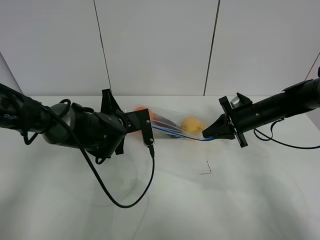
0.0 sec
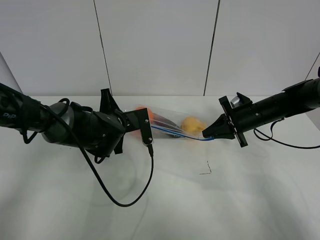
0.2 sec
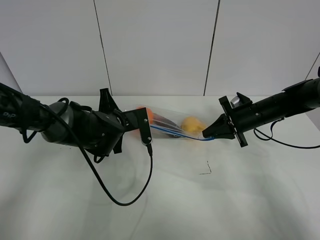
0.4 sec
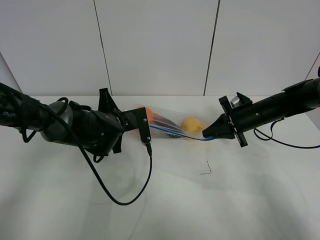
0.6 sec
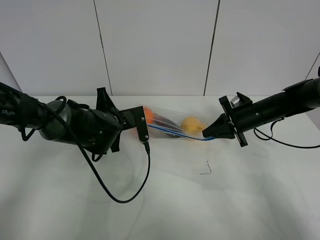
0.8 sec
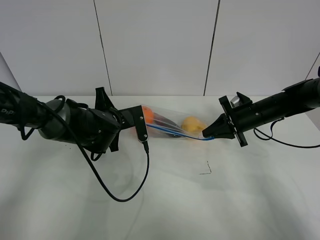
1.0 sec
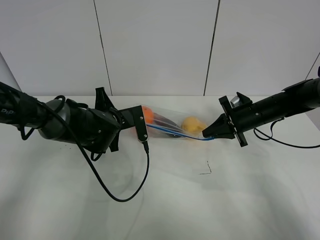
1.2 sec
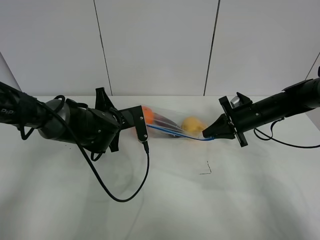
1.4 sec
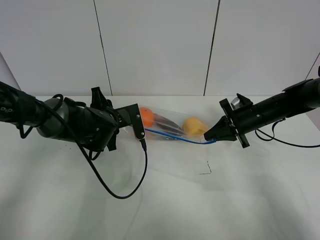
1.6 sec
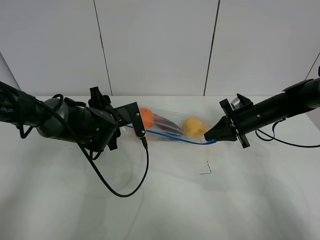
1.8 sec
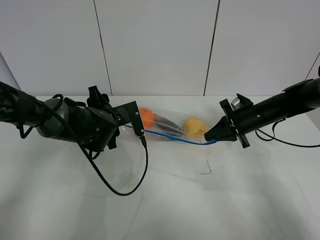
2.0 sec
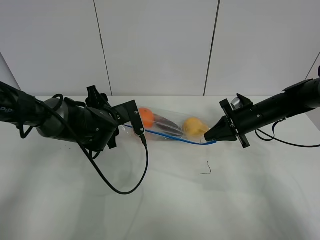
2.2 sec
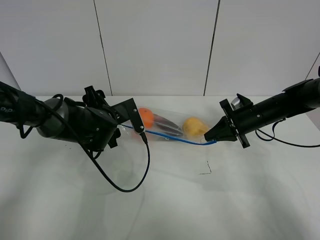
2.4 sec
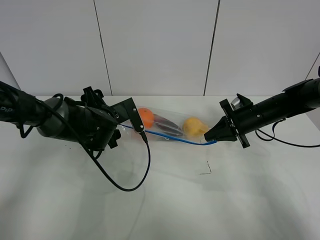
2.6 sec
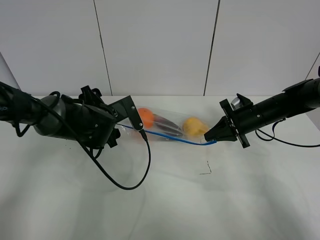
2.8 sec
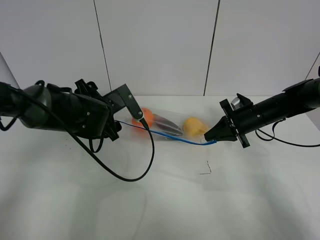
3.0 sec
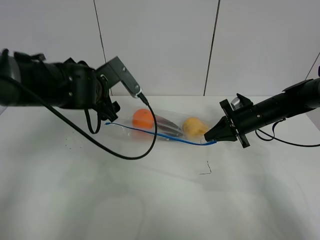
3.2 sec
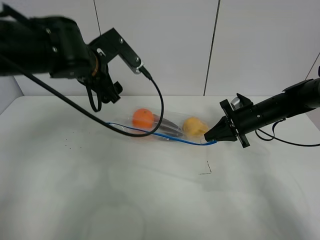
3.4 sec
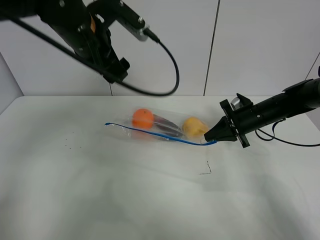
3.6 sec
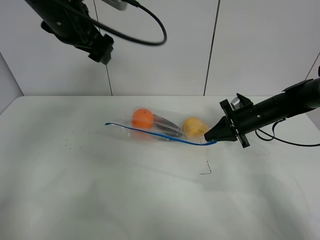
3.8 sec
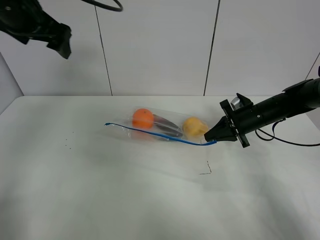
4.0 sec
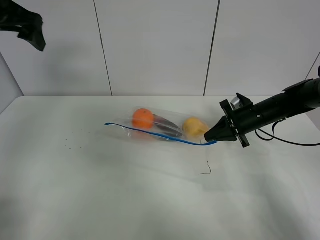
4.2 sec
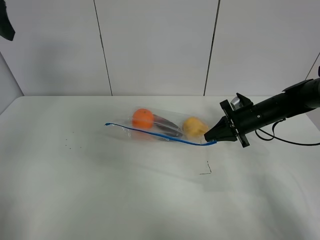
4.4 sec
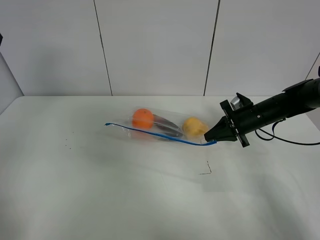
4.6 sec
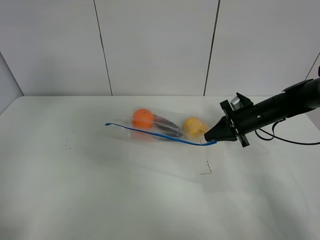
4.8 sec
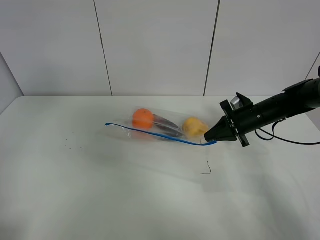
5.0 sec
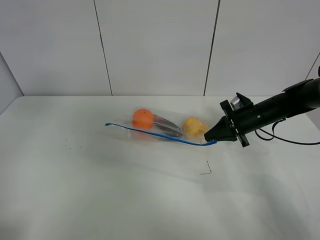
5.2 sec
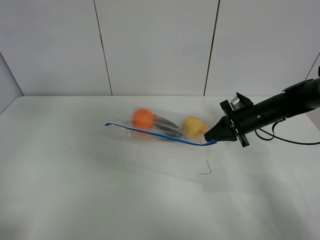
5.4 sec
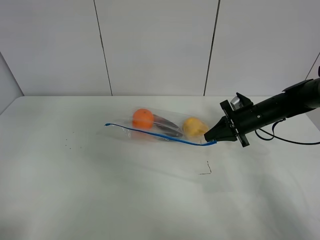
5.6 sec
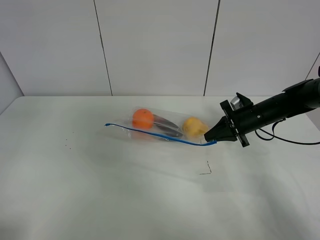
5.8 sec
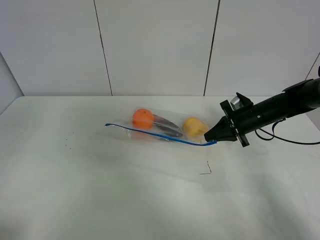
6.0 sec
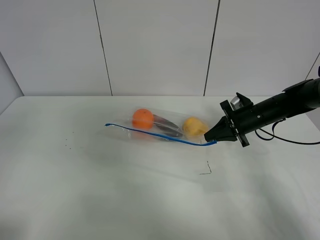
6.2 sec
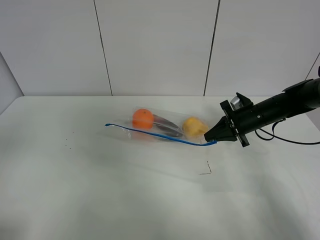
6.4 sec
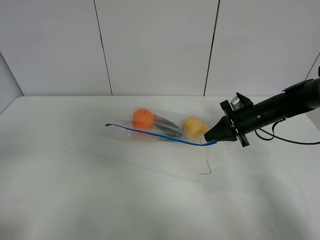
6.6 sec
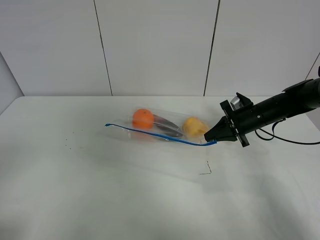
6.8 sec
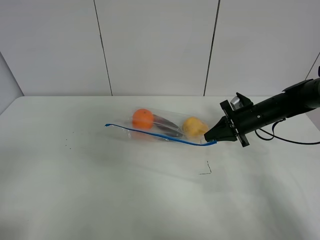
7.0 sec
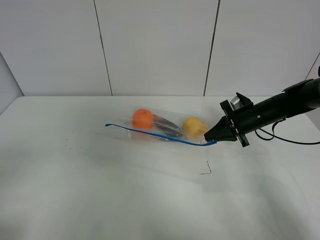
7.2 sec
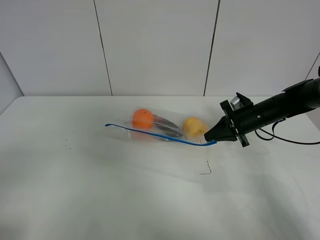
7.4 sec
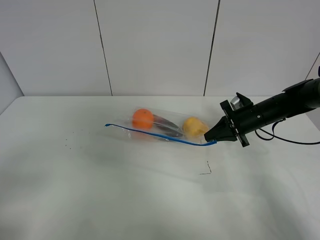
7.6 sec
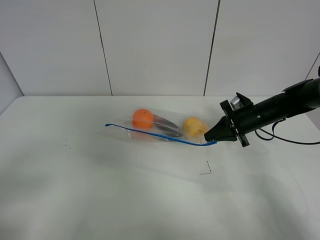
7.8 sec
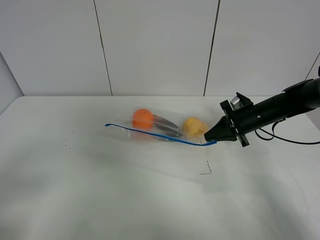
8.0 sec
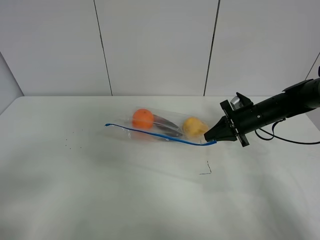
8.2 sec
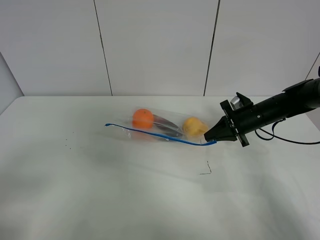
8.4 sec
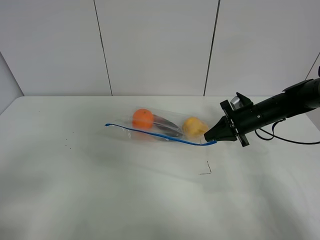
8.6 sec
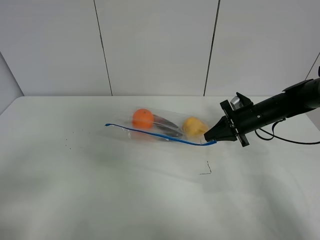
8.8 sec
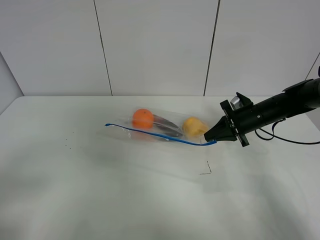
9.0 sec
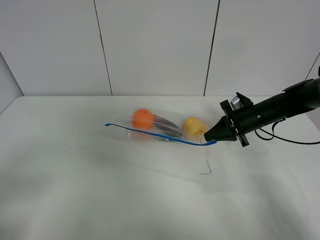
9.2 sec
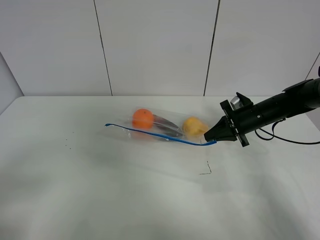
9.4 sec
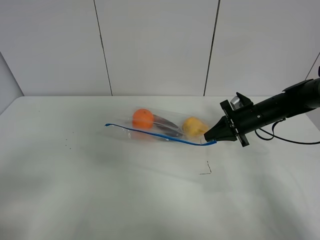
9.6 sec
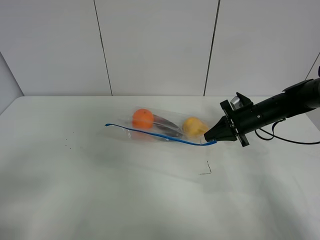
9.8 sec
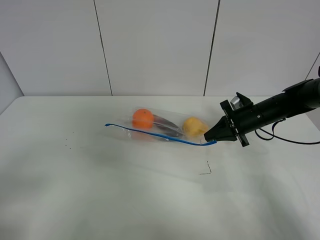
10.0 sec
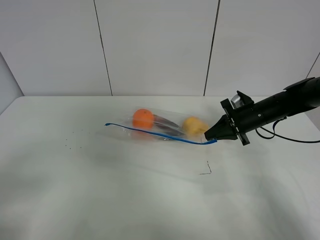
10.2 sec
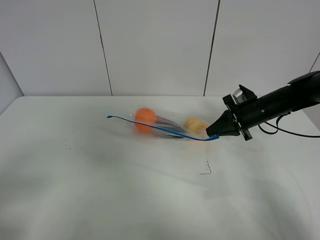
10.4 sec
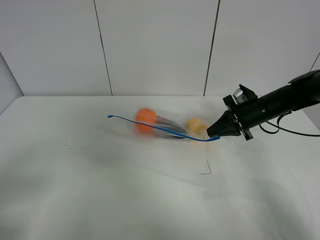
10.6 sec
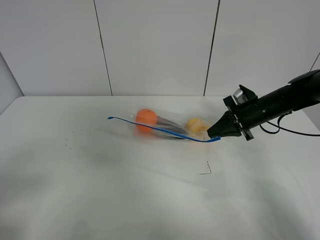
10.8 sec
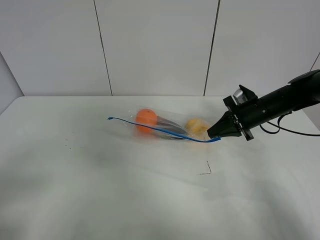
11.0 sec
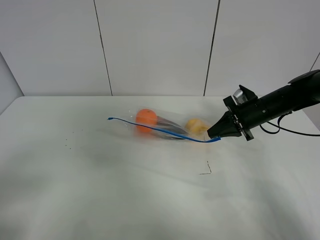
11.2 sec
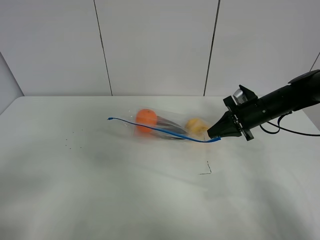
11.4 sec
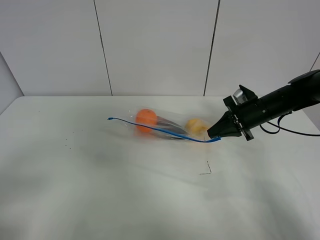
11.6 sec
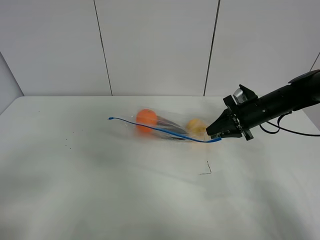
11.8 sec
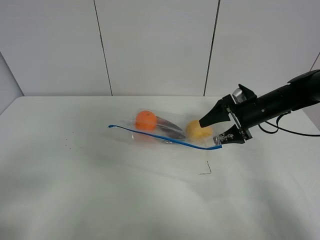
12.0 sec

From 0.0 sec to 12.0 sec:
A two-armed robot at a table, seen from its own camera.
Step, from 0.0 sec to 2.0 sec: Pull the fruit bag with left gripper.
From 0.0 sec to 1.6 sec: The left gripper opens up.
From 1.6 sec to 3.0 sec: The grippers make only small movements.
From 3.0 sec to 4.4 sec: The left gripper moves upward and to the left, about 30 cm.
From 4.4 sec to 6.0 sec: The left gripper goes approximately 20 cm backward.
From 6.0 sec to 7.6 sec: The left gripper is displaced downward and backward by approximately 15 cm.
From 7.6 sec to 9.0 sec: Both grippers stay about where they are.
From 9.0 sec to 10.4 sec: The grippers move only a little.
From 10.4 sec to 12.0 sec: The right gripper opens.

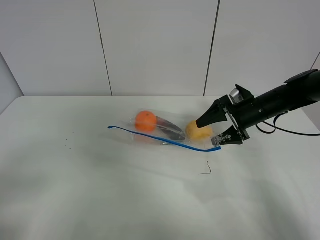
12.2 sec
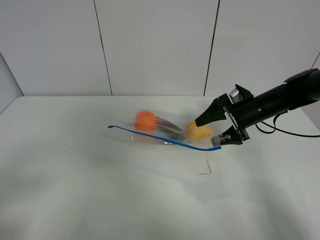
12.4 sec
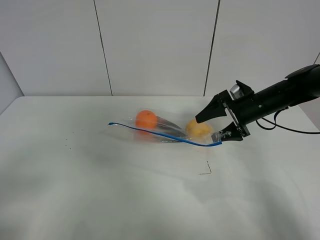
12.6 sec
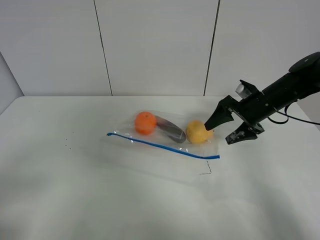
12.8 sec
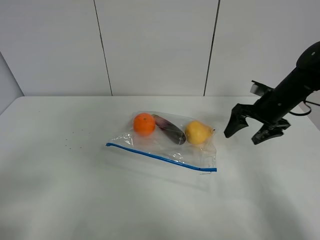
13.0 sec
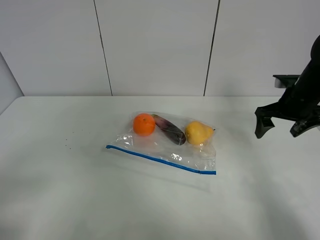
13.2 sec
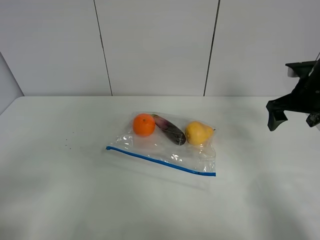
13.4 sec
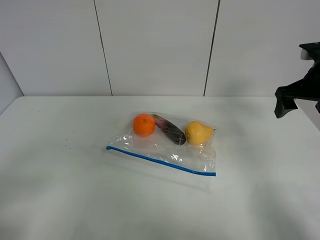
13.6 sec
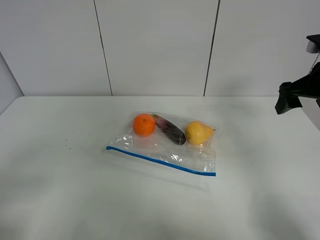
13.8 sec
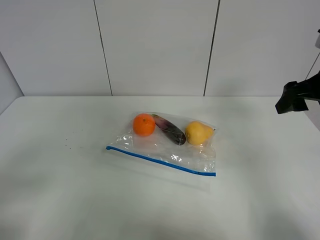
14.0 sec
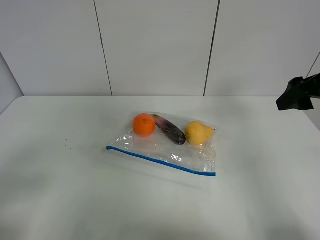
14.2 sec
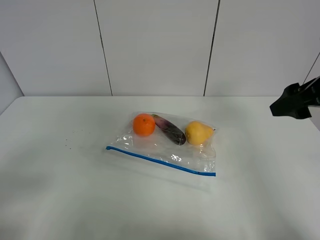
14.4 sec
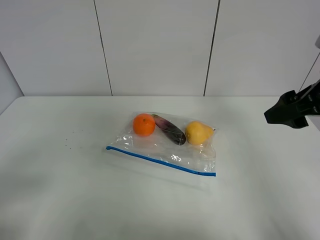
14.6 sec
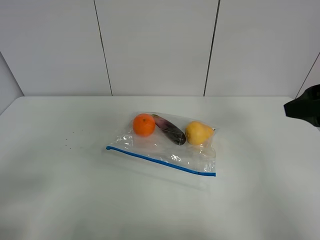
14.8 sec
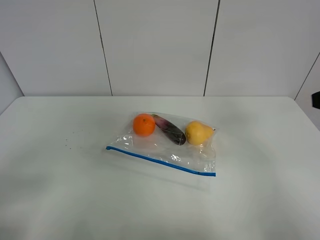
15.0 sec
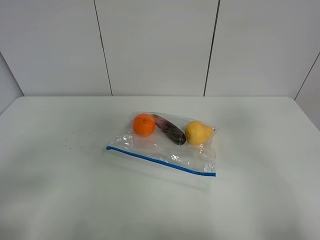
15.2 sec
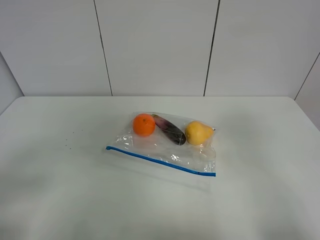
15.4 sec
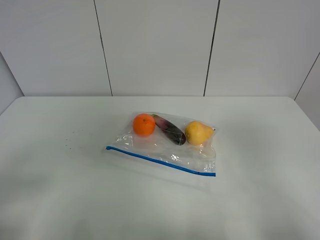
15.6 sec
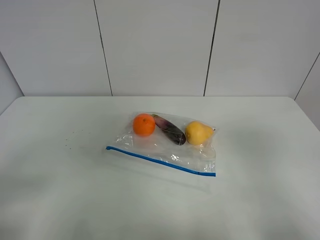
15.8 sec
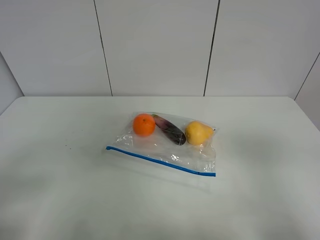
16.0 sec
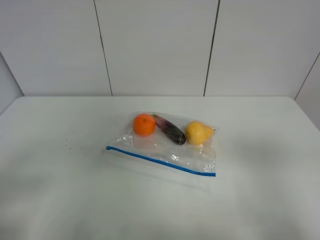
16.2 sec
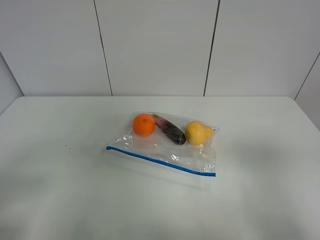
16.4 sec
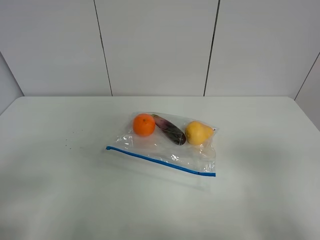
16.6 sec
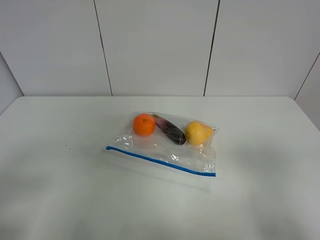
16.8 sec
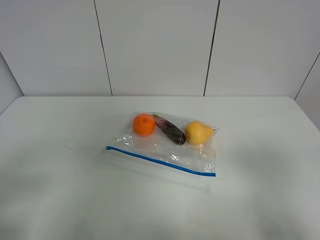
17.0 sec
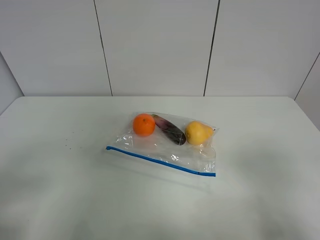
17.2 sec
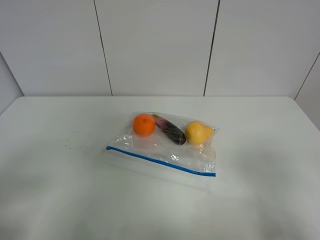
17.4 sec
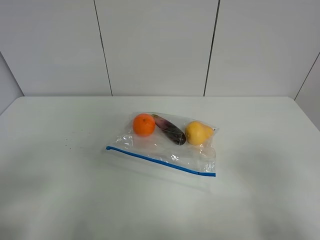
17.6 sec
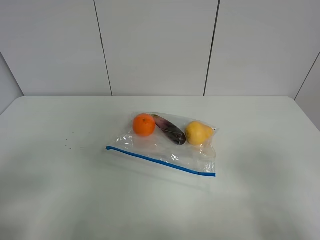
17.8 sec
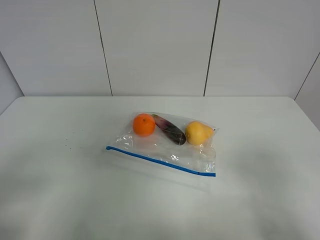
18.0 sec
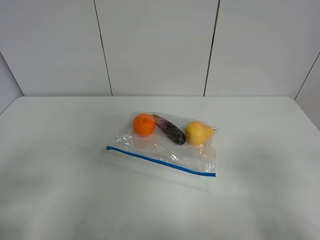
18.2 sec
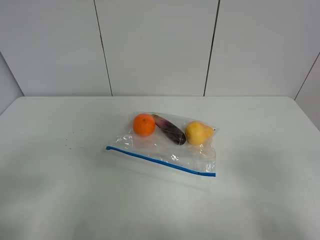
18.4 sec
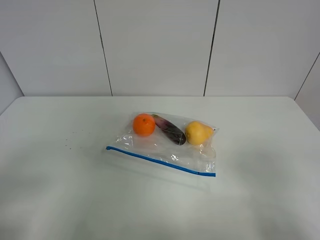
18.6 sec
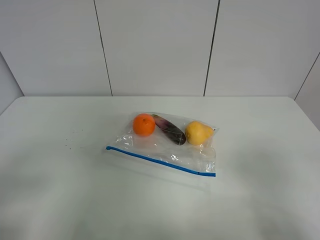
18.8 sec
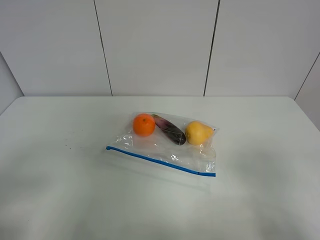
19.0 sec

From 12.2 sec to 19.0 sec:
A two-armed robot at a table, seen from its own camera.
From 12.2 sec to 13.6 sec: The right gripper travels upward, to the right and backward by approximately 15 cm.
From 13.6 sec to 15.0 sec: The right gripper is displaced backward by about 20 cm.
From 17.6 sec to 19.0 sec: Neither gripper changes place.

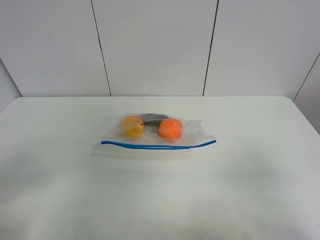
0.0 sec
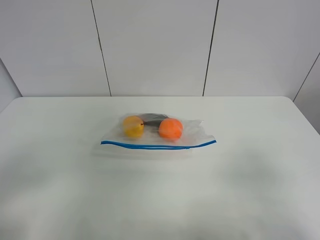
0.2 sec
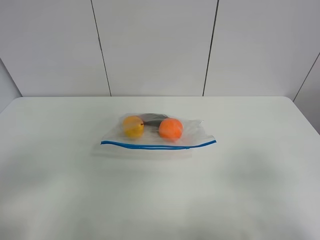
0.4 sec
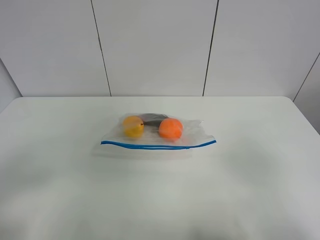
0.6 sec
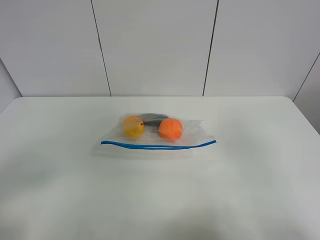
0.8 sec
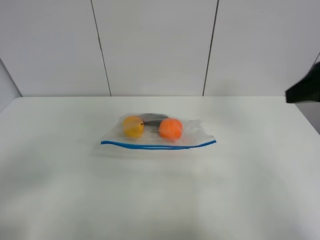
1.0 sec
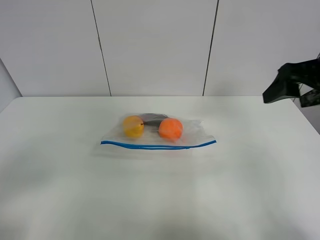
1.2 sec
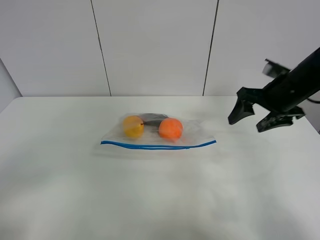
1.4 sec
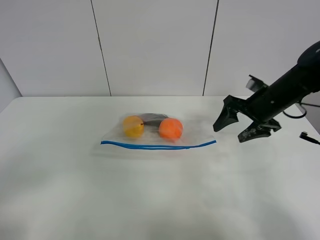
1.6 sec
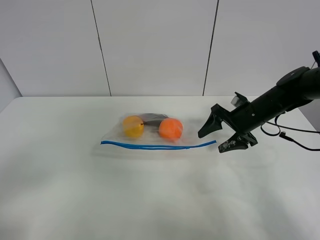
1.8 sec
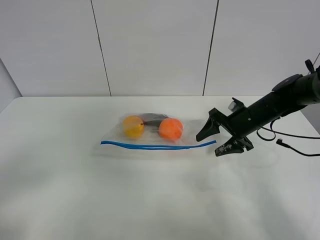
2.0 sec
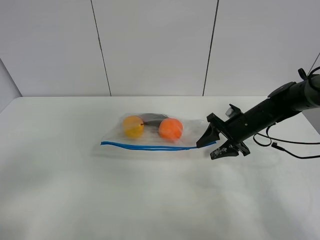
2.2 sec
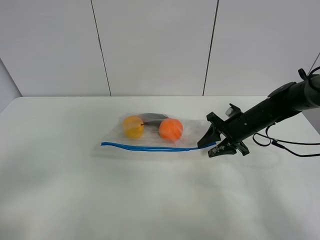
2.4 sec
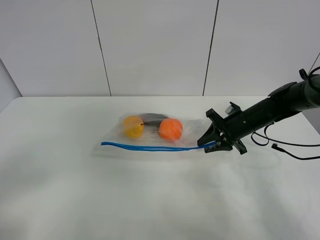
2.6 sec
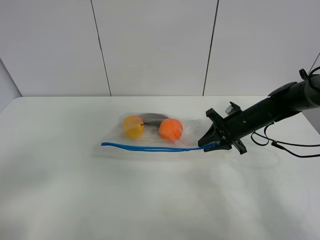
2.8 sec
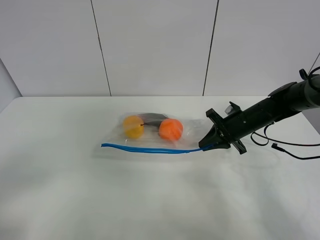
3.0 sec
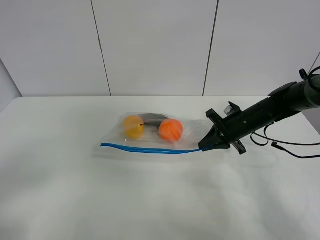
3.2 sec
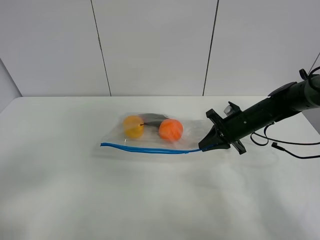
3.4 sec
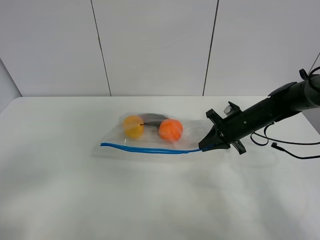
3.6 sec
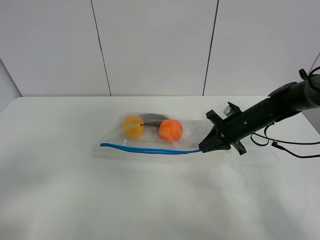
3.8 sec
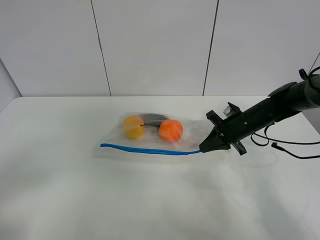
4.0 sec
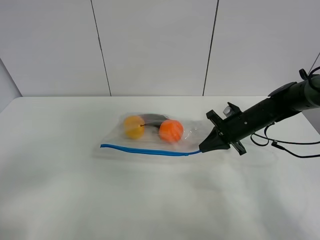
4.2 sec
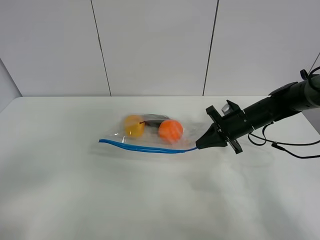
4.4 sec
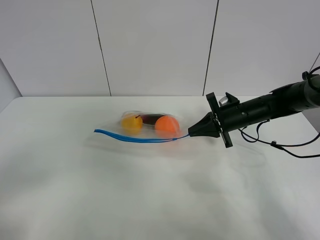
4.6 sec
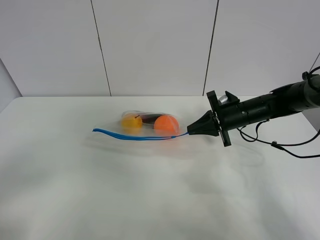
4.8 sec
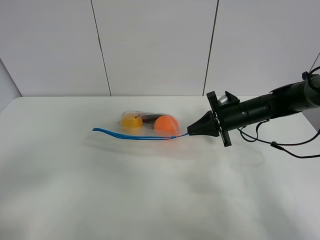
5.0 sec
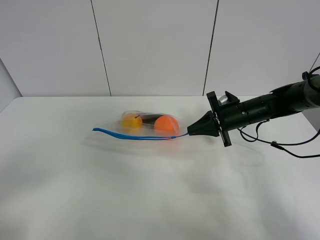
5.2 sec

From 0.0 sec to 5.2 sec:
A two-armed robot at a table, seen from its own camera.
Step, from 0.0 sec to 4.0 sec: Grasp the fruit bag with right gripper.
Step, from 4.2 sec to 5.0 sec: Lift the fruit bag with your right gripper.
From 0.0 sec to 1.8 sec: The right gripper goes roughly 35 cm forward.
From 1.8 sec to 3.4 sec: The right gripper closes up.
From 3.4 sec to 5.2 sec: The grippers stay close to where they were, moving slightly.
